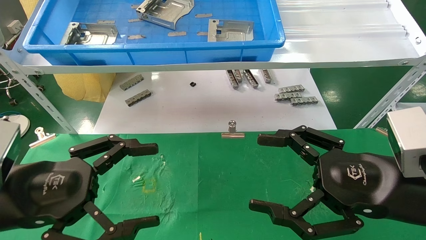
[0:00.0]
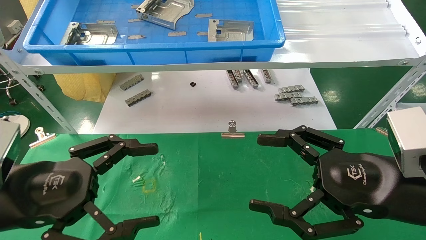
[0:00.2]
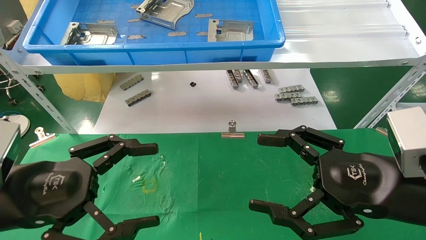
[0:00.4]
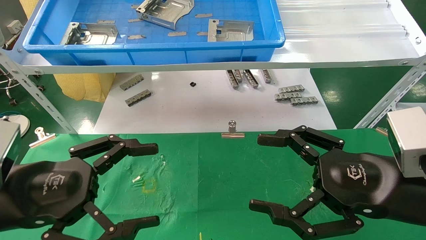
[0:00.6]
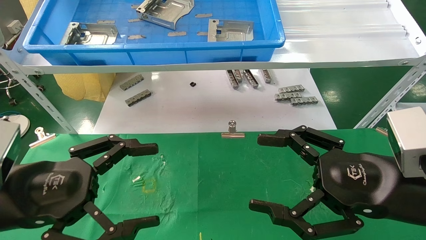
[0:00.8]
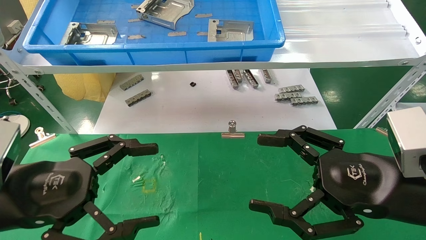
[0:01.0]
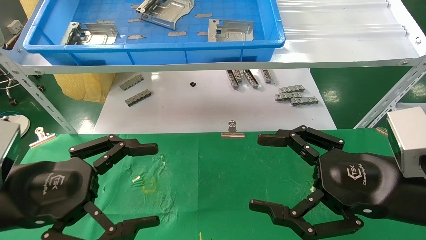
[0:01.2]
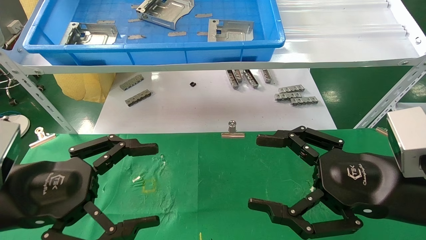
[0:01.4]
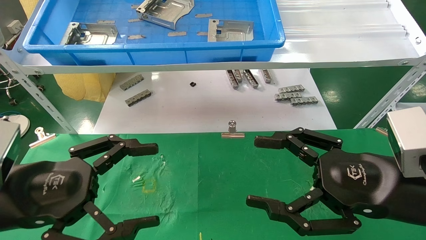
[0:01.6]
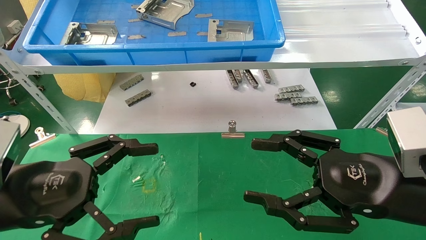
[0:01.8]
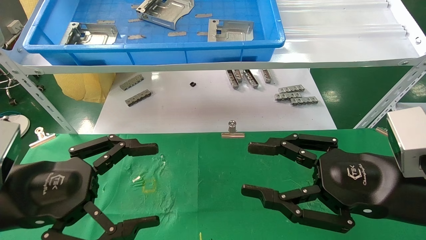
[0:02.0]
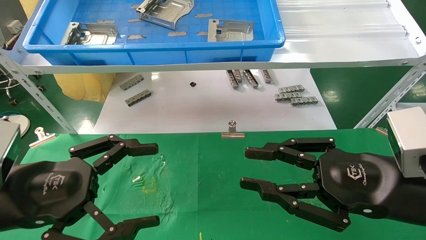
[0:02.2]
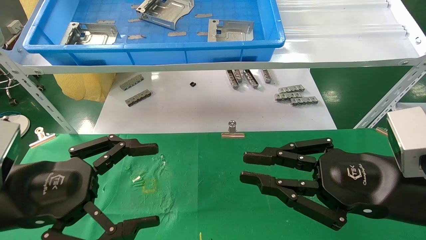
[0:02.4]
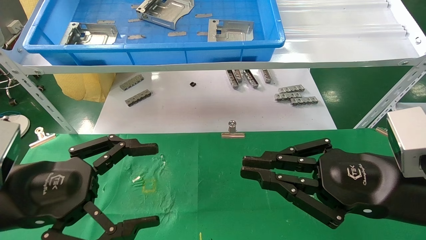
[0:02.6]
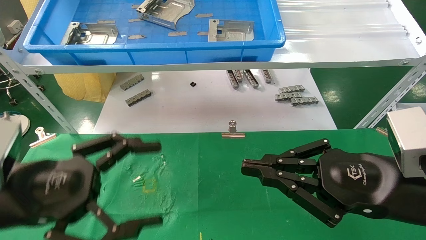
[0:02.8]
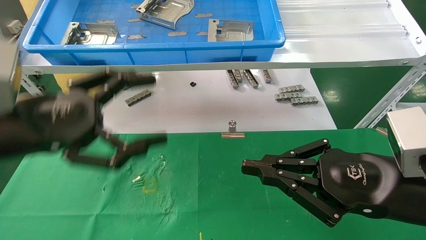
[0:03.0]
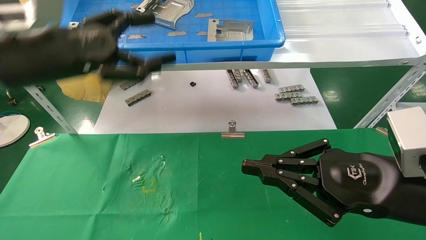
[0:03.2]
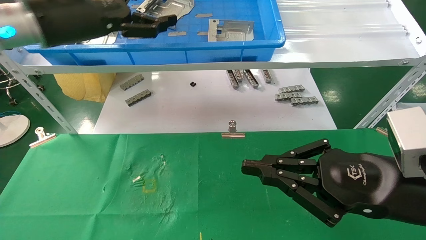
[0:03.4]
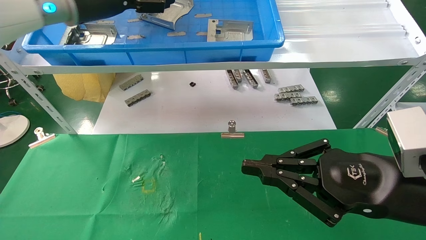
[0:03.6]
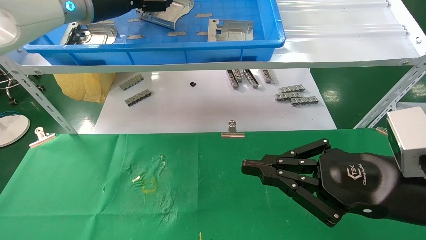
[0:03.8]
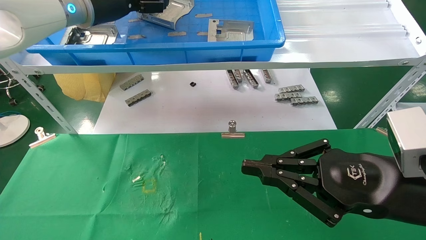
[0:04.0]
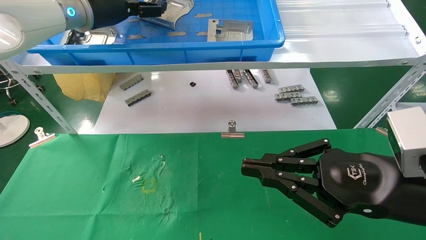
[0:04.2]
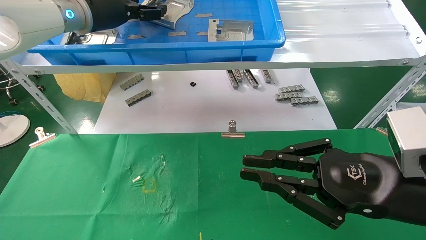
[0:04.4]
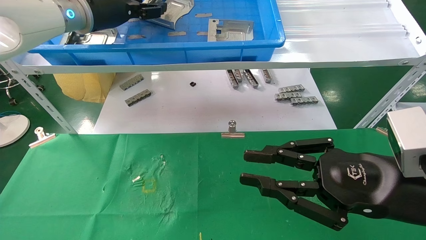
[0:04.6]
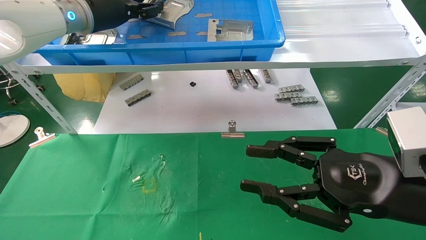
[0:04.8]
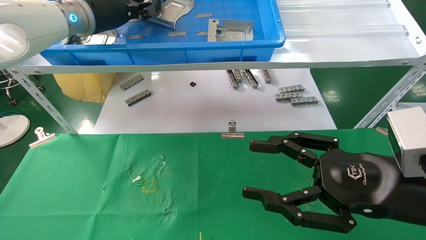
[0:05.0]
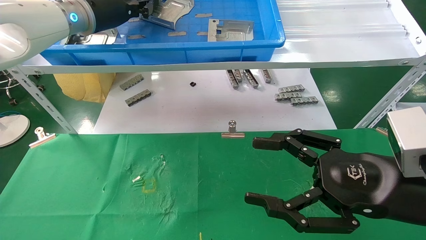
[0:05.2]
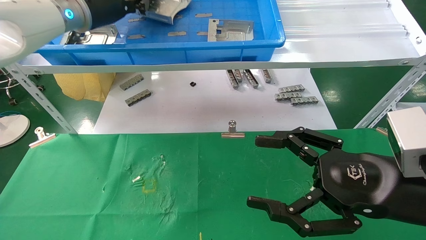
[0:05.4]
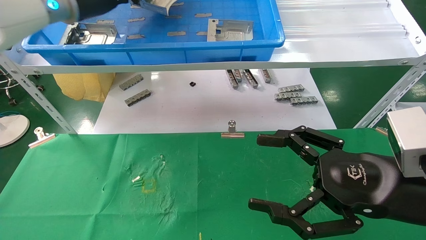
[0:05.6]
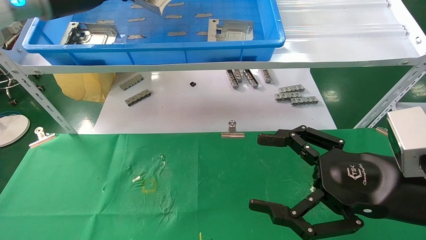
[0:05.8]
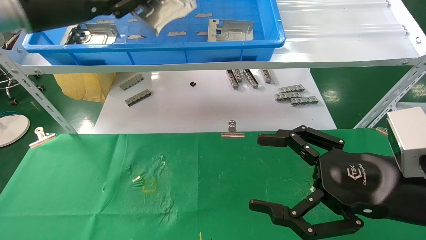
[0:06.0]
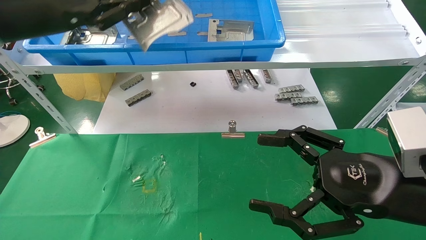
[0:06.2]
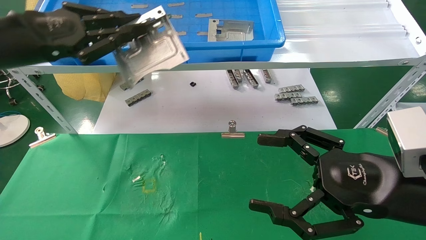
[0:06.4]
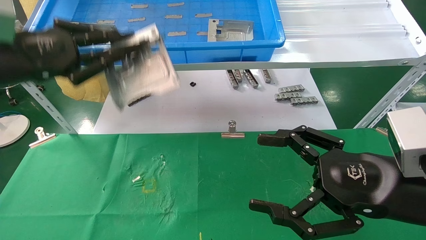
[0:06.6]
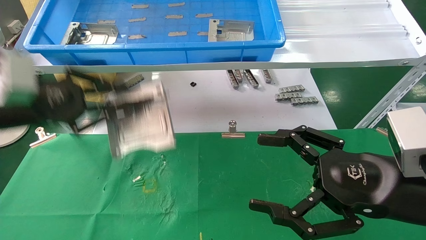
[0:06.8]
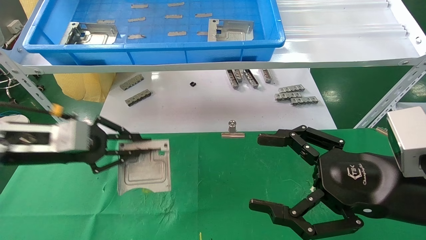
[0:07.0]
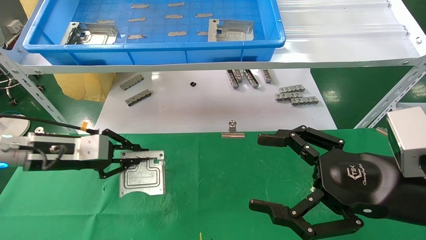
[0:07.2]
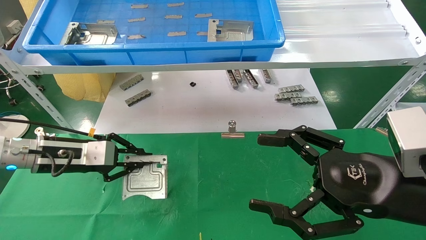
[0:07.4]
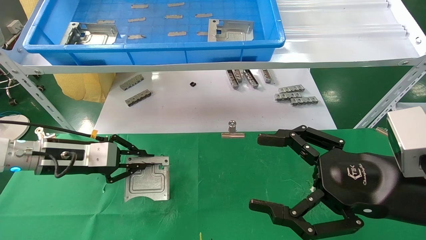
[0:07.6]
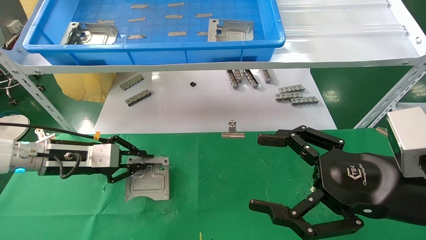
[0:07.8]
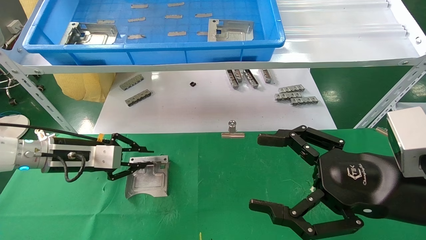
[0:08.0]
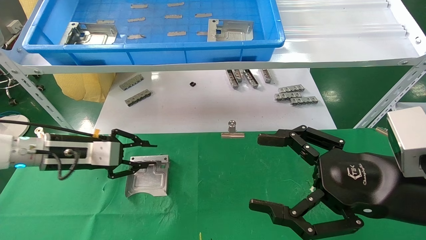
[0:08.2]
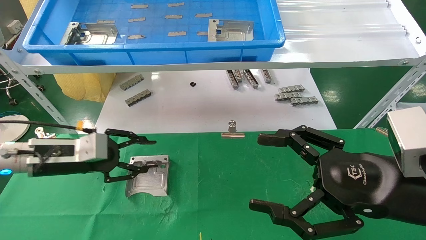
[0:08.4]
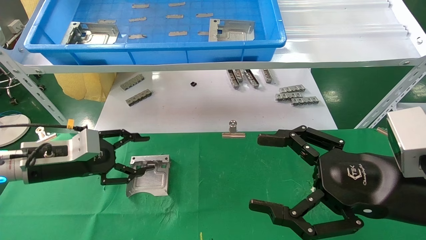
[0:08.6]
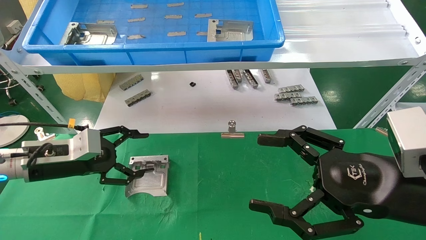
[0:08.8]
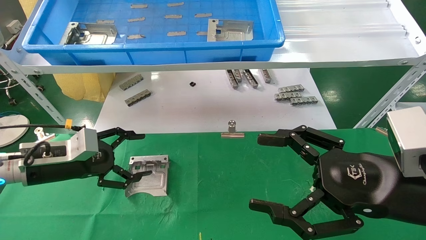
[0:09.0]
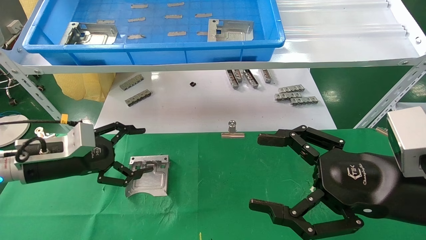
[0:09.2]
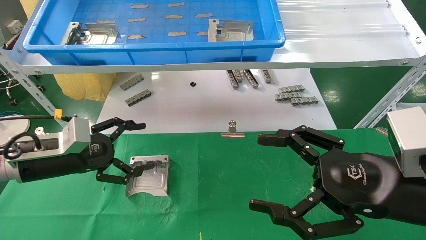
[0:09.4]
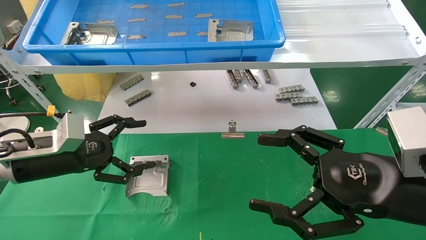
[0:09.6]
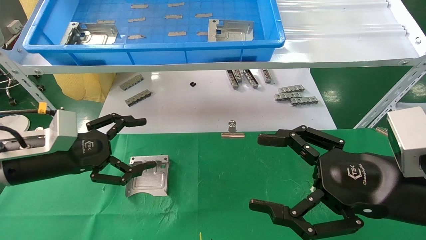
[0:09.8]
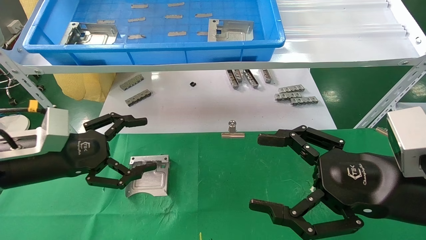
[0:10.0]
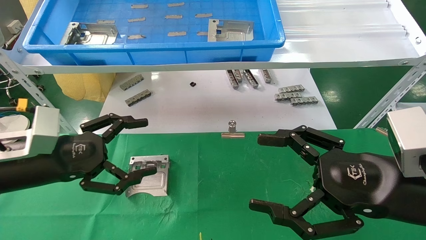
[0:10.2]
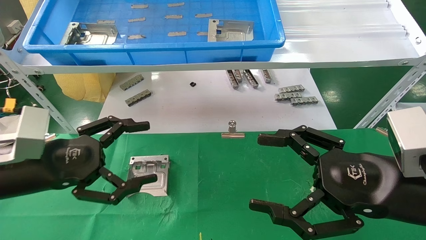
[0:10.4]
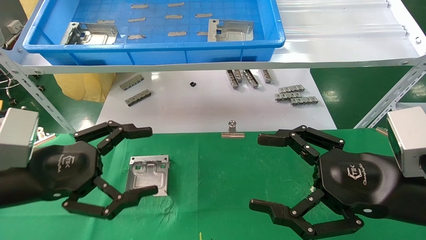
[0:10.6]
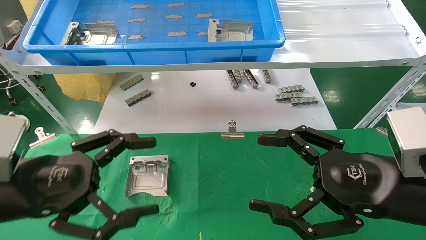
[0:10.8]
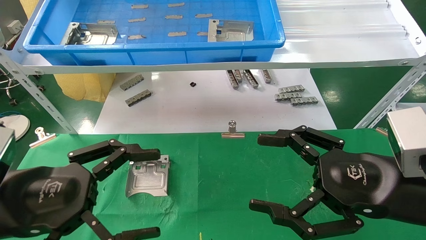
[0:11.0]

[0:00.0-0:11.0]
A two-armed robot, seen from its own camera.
Task of the whole recording: use the mechanical arm to pick up the parts and place them on the table.
Step, 0:03.0 to 0:05.2: Pick up the hard drive bracket from the feeding area.
Step, 0:05.4 to 0:08.2: Place the hard drive bracket into the box.
0:00.0 to 0:01.6: Neither gripper changes place.
0:01.6 to 0:03.2: The left gripper moves upward and forward, approximately 20 cm, while the right gripper closes.
0:03.2 to 0:04.8: The left gripper moves forward and upward, approximately 15 cm, and closes up.
0:04.8 to 0:06.2: The left gripper moves backward and to the left, approximately 15 cm, and closes its fingers, while the right gripper opens up.
0:06.2 to 0:07.8: The left gripper travels downward by roughly 25 cm.
0:07.8 to 0:09.4: The left gripper opens its fingers.
0:09.4 to 0:11.0: The left gripper goes about 15 cm backward.

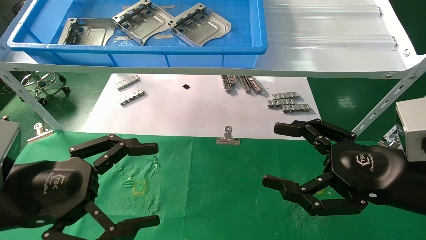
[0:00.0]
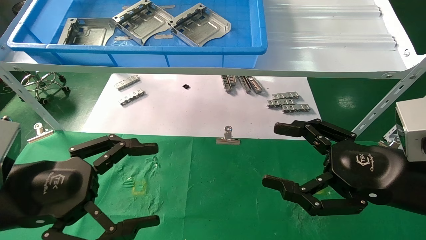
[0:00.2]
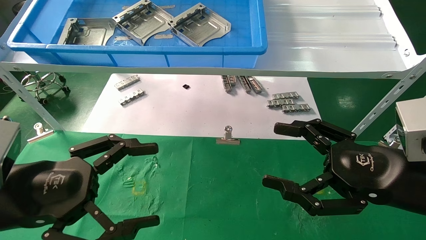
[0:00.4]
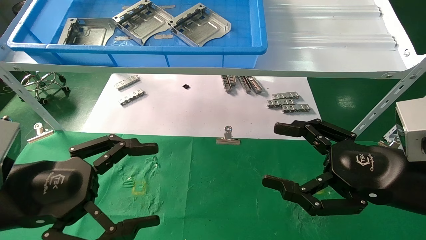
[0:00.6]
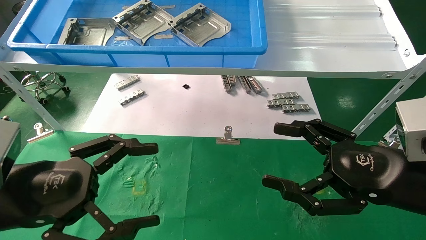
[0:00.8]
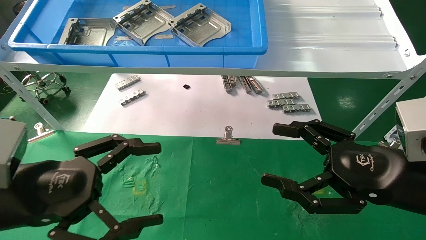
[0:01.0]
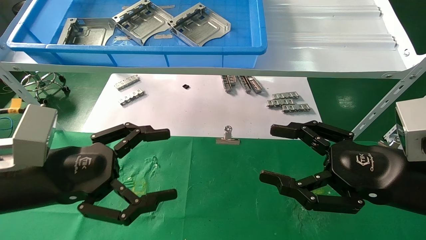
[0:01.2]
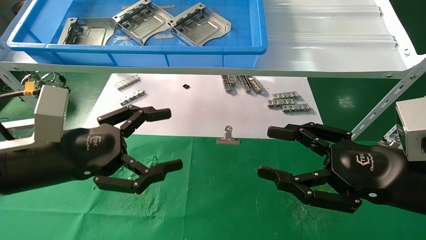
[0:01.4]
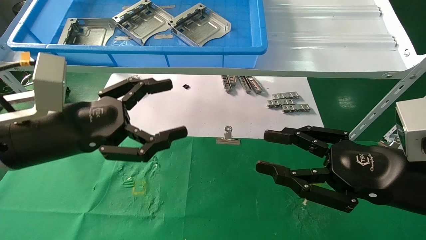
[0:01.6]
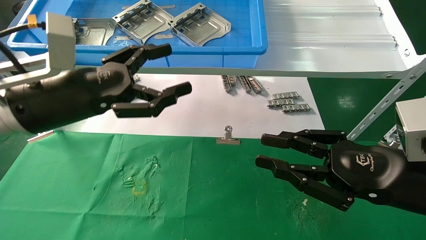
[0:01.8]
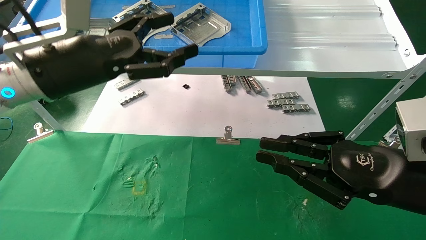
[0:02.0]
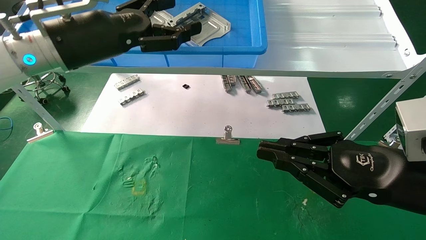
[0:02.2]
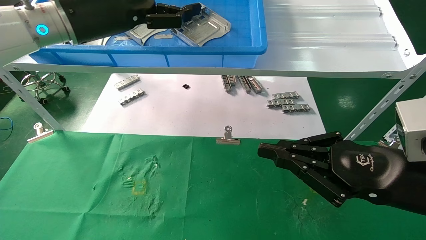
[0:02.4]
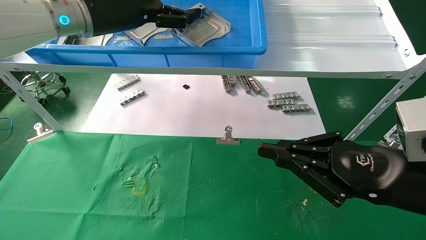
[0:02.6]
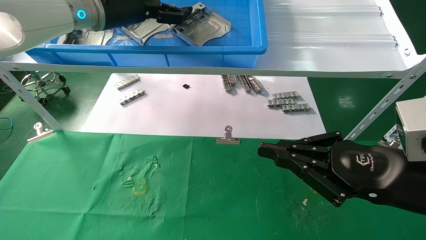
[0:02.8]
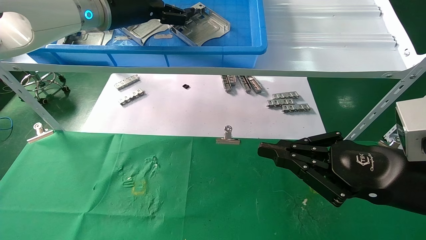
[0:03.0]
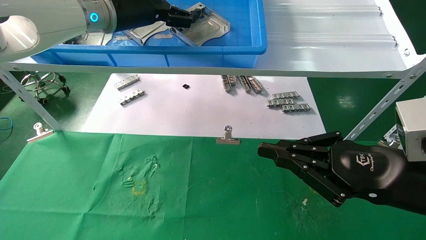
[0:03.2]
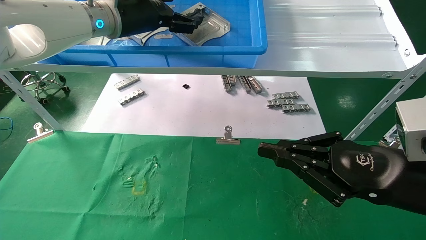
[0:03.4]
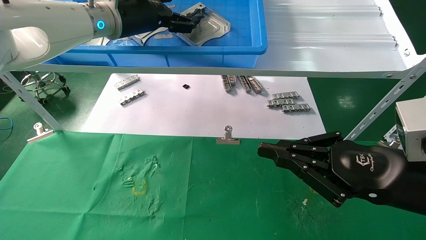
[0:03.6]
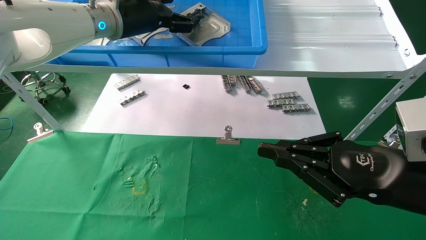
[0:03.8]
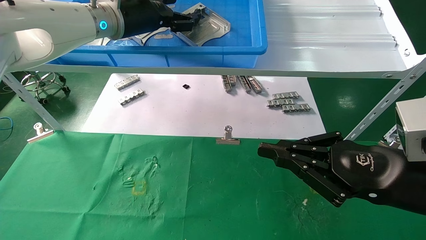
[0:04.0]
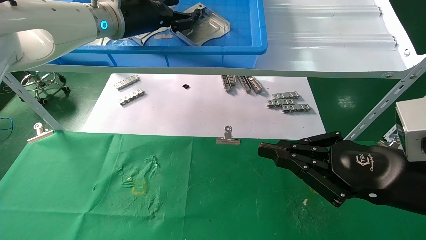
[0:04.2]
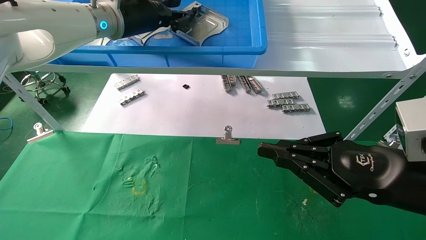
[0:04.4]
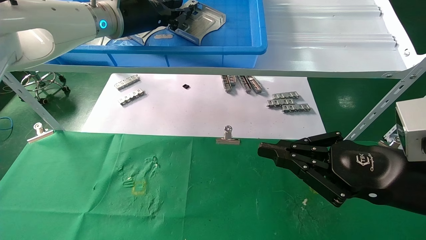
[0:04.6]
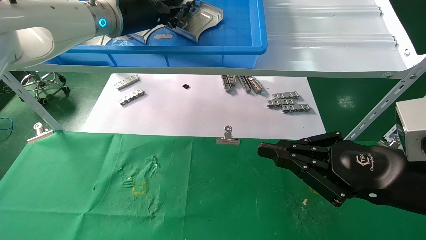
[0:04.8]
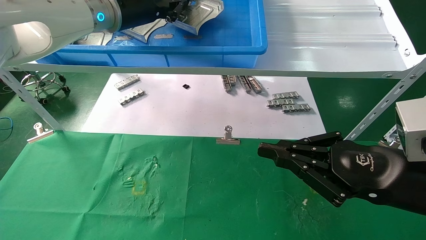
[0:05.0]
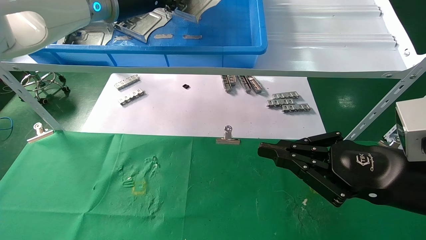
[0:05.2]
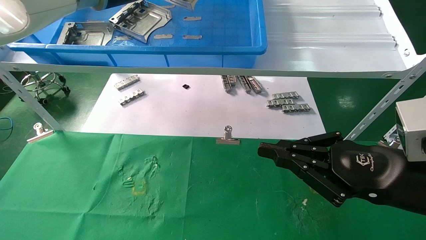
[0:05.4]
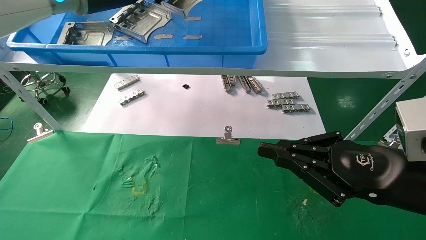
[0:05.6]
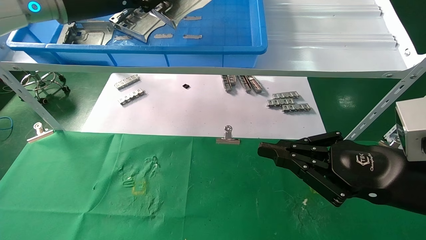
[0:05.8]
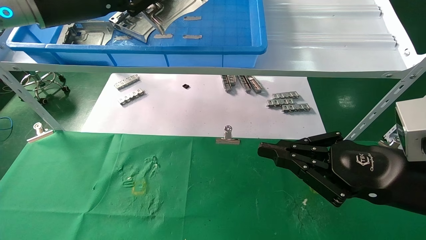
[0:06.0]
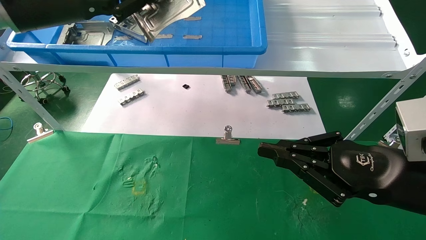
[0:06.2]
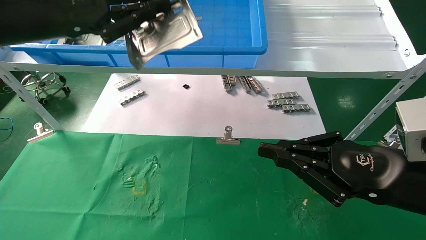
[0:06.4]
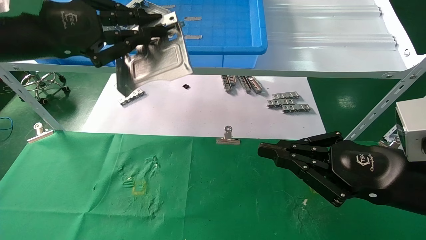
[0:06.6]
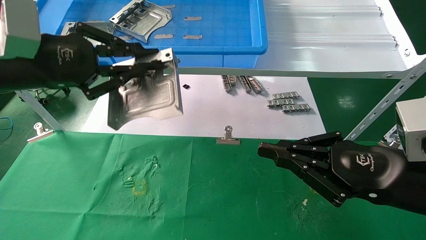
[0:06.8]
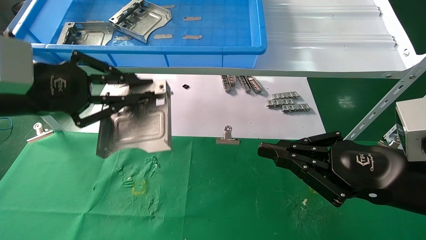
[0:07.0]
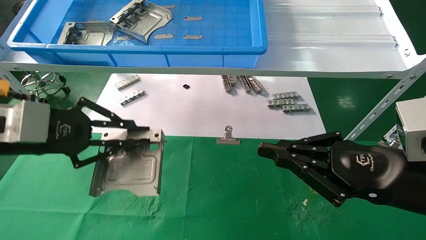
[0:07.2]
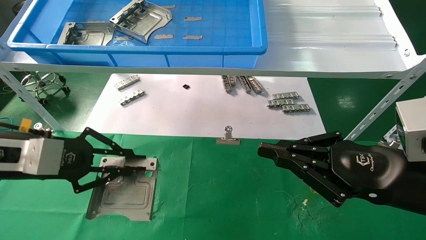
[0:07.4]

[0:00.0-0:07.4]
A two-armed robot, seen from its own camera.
Task of the whole recording: use the mechanical arm to pick up the parts and place them on the table.
Step, 0:01.4 to 0:04.8: Pick up the hard drive bracket from the feeding area.
0:00.0 to 0:01.4: The left gripper moves forward, some 5 cm.
0:01.4 to 0:03.0: The right gripper closes, while the left gripper goes some 25 cm upward and forward.
0:03.0 to 0:04.4: The left gripper closes up.
0:04.4 to 0:06.0: The left gripper heads backward and to the left, covering about 10 cm, and closes up.
0:06.0 to 0:07.4: The left gripper goes some 20 cm downward.
